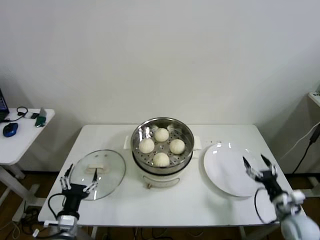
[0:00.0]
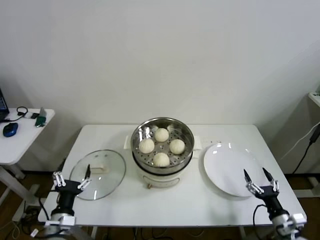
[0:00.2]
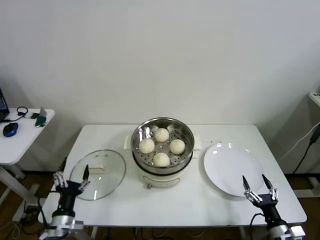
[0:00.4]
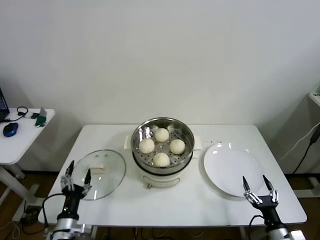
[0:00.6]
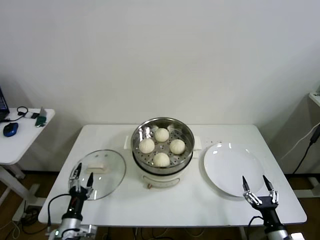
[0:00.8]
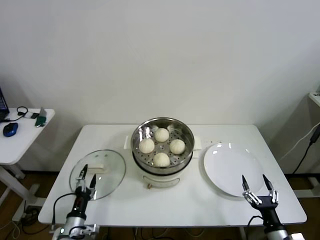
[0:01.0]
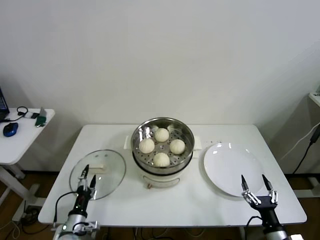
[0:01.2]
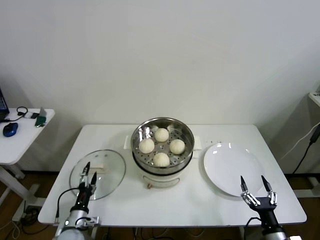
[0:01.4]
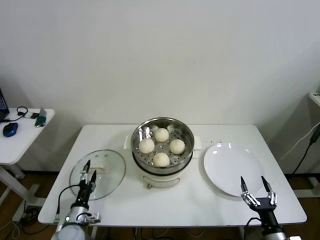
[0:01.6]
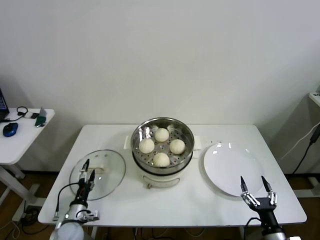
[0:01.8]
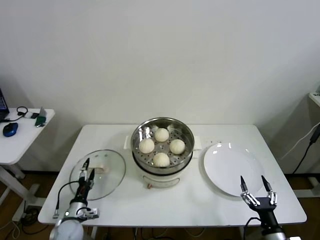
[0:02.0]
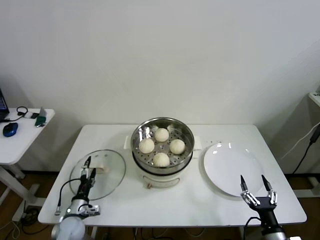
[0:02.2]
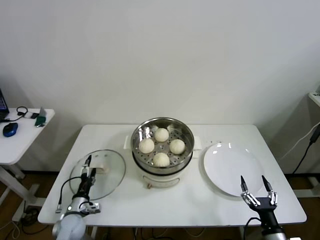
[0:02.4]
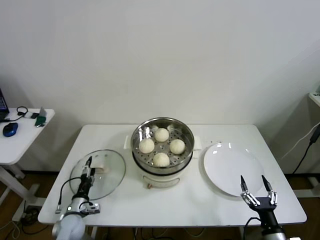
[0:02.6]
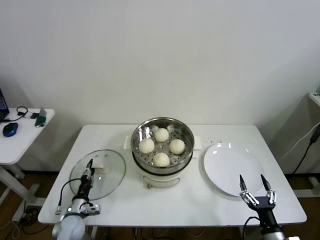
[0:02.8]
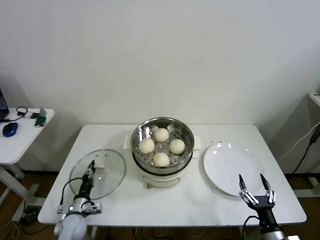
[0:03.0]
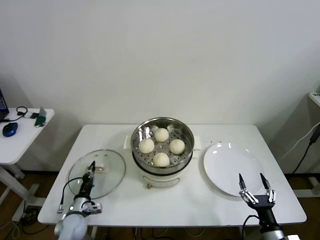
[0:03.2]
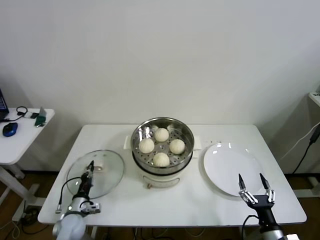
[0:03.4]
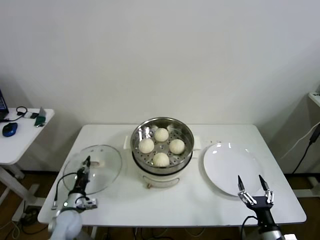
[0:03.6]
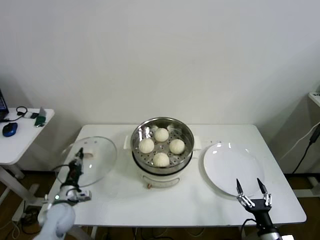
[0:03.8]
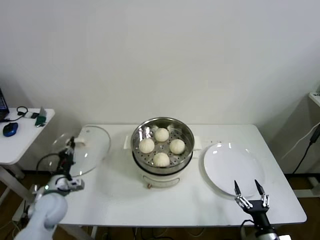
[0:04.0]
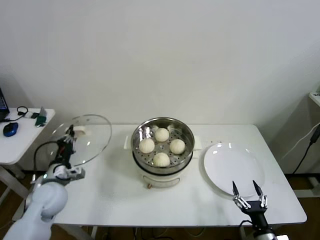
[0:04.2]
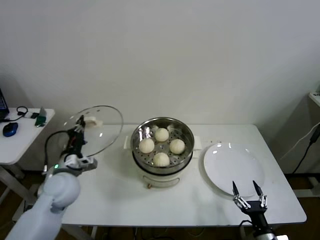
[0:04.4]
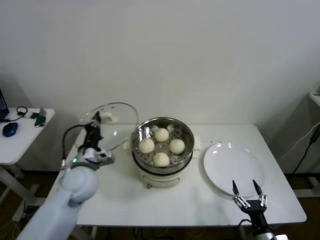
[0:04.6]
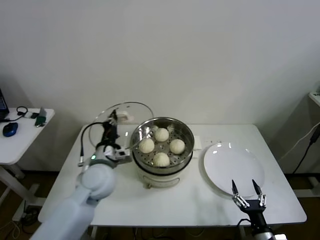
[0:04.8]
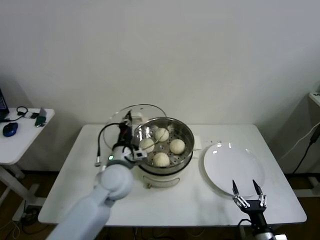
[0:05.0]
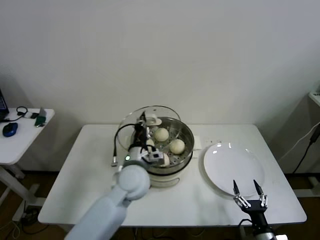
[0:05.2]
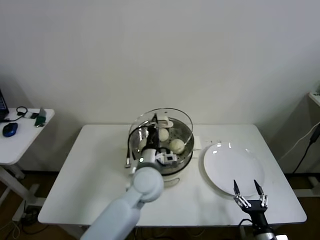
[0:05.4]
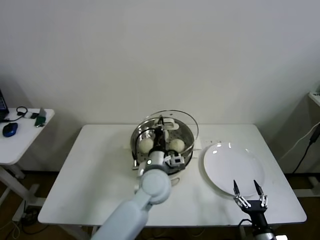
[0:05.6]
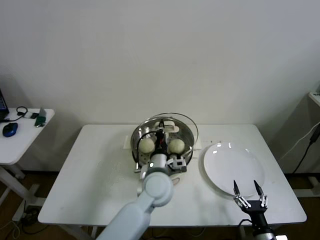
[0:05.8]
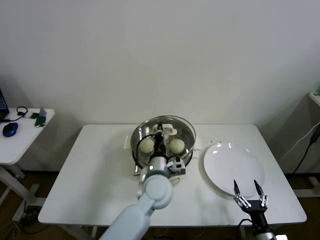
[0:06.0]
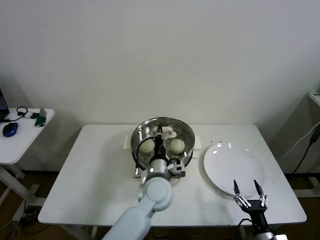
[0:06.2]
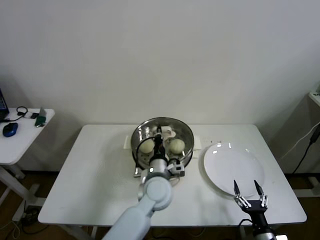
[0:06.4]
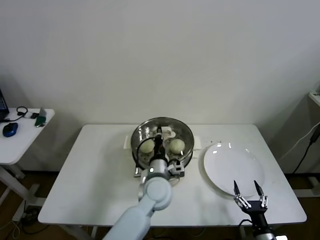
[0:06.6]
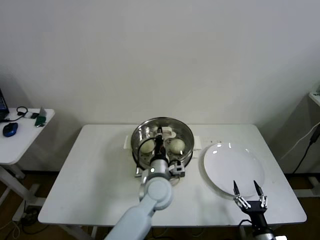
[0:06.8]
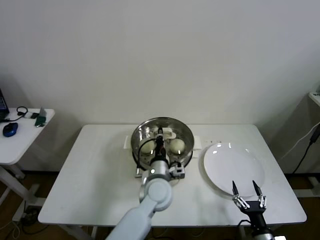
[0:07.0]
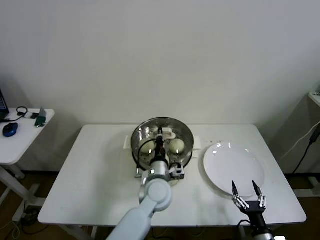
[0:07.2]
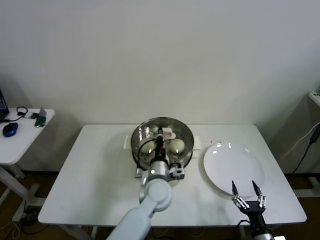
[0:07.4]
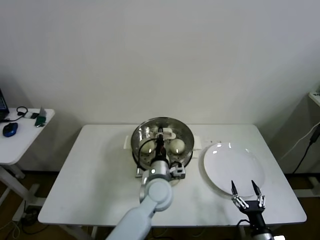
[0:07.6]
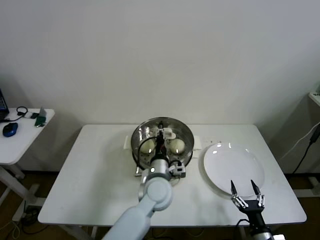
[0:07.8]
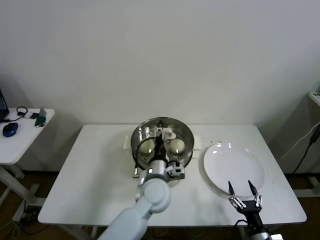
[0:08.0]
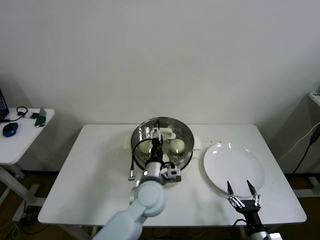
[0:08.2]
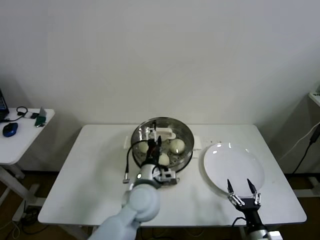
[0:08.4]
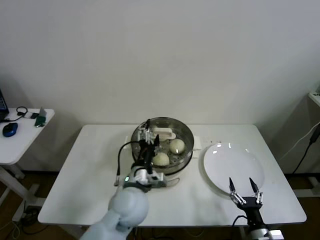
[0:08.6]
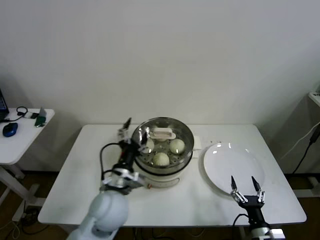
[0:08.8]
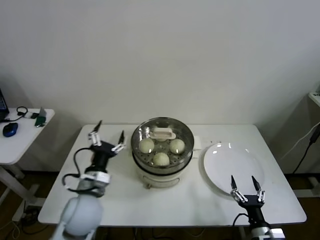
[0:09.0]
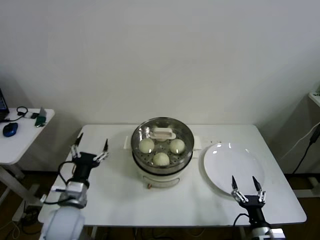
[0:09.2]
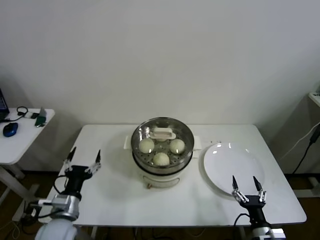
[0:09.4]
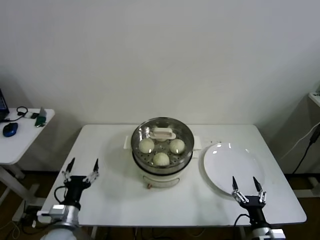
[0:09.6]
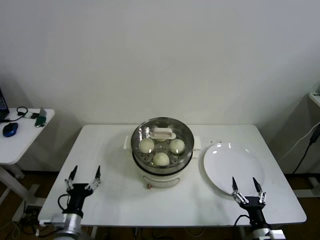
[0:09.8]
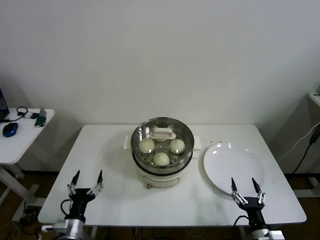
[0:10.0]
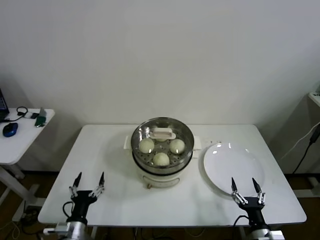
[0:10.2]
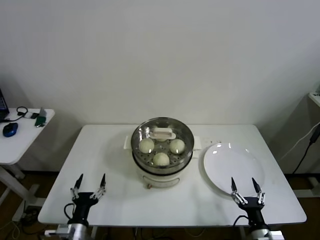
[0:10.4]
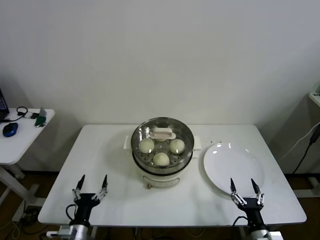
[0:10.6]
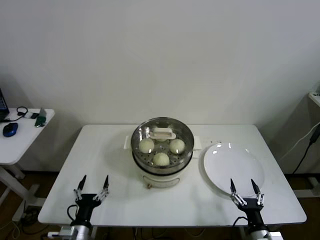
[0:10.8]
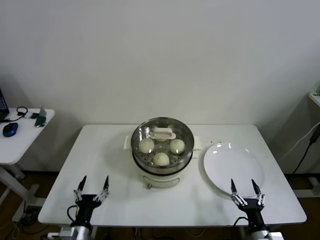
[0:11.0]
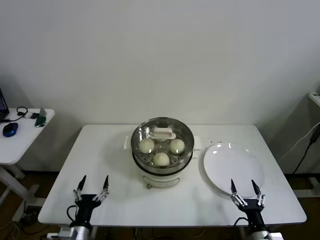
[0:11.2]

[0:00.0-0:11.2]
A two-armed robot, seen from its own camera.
Step, 0:00.0 to 0:03.2: Grasp the pot lid with left gripper.
Step, 0:03.4 to 0:07.6: Place the pot lid on the steamer with left gripper.
0:00.0 to 0:01.6: The left gripper goes about 15 cm downward and forward. The right gripper travels backward and to the left by roughly 15 cm.
0:01.6 to 0:03.2: The left gripper moves roughly 5 cm, and closes its fingers.
0:03.2 to 0:04.8: The left gripper heads upward and to the right, covering about 30 cm.
0:04.8 to 0:06.4: The left gripper moves to the right, some 20 cm.
0:06.4 to 0:08.0: The left gripper opens.
0:08.0 to 0:09.6: The left gripper moves to the left and backward, approximately 30 cm, and opens up.
0:09.6 to 0:11.2: The left gripper moves downward, some 5 cm.

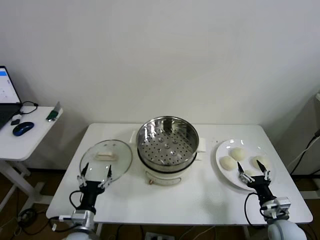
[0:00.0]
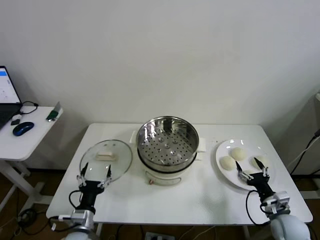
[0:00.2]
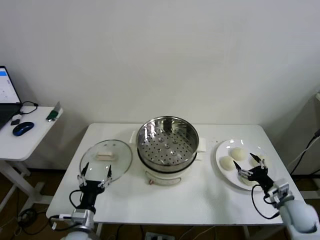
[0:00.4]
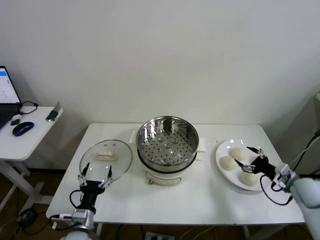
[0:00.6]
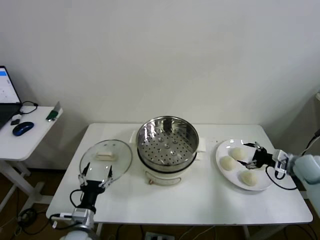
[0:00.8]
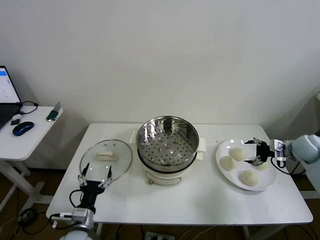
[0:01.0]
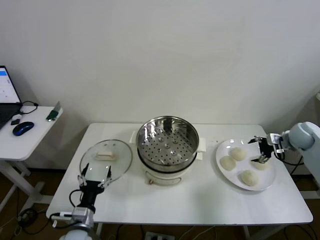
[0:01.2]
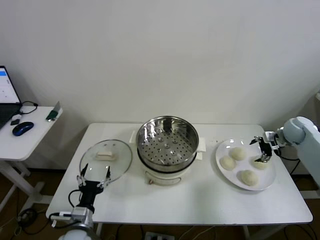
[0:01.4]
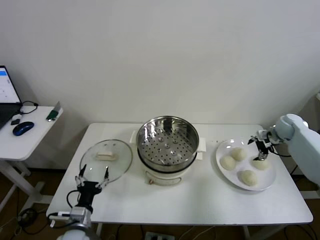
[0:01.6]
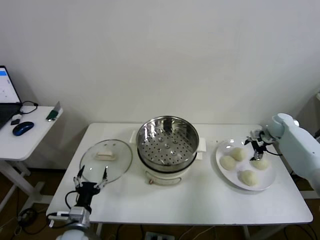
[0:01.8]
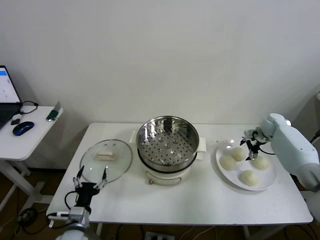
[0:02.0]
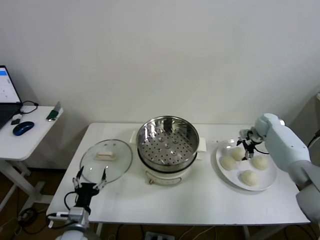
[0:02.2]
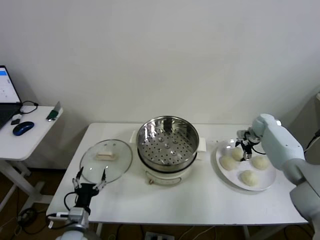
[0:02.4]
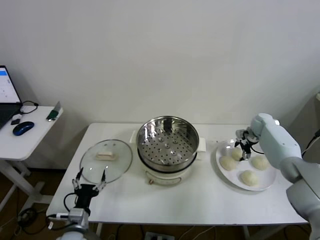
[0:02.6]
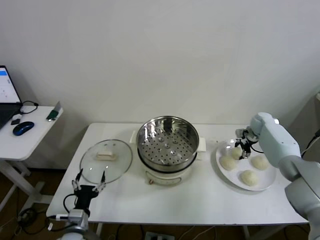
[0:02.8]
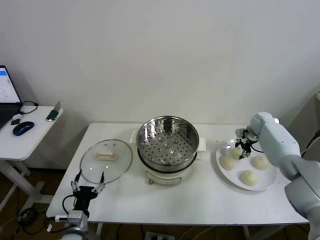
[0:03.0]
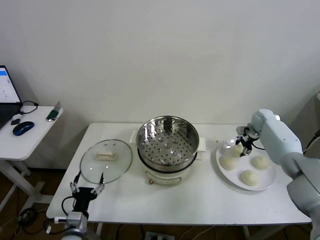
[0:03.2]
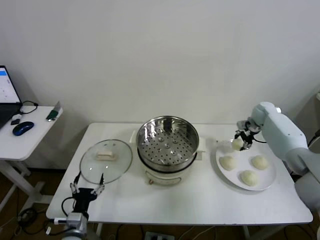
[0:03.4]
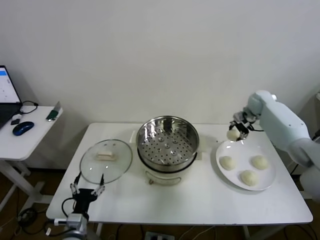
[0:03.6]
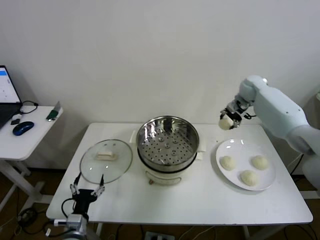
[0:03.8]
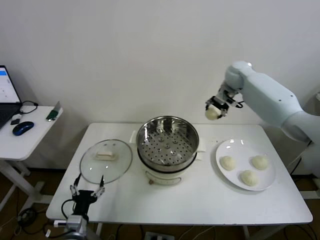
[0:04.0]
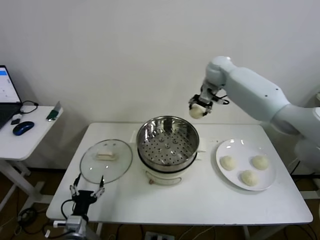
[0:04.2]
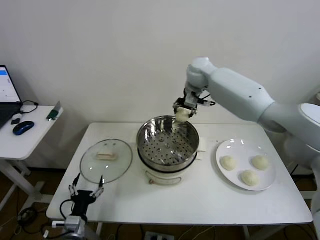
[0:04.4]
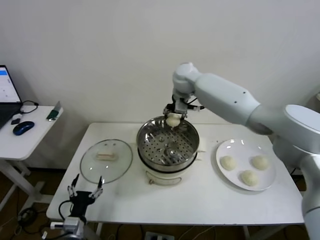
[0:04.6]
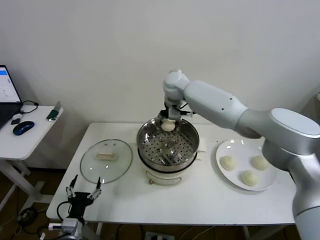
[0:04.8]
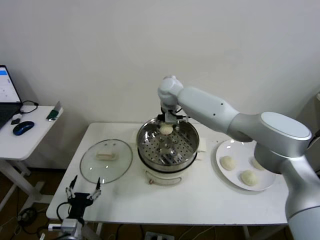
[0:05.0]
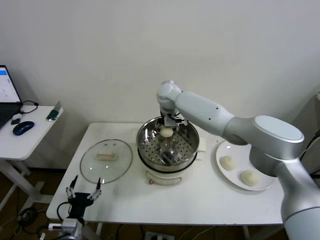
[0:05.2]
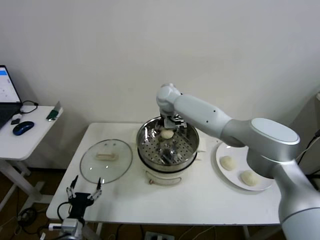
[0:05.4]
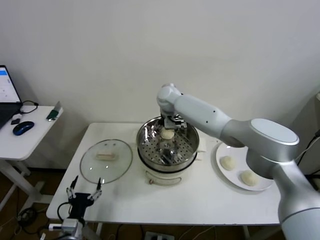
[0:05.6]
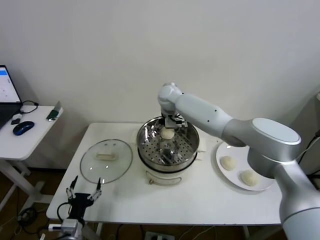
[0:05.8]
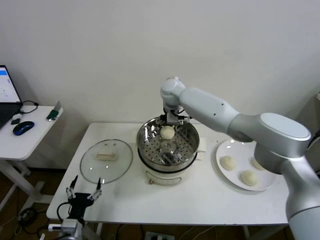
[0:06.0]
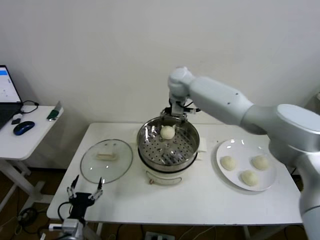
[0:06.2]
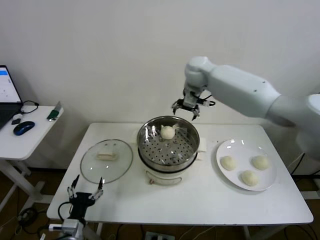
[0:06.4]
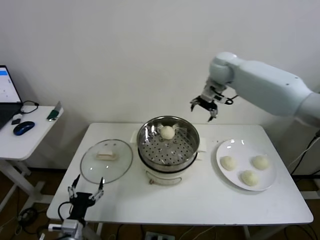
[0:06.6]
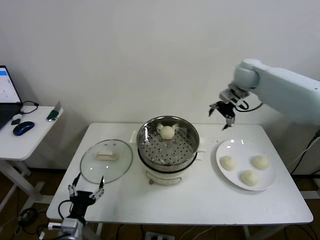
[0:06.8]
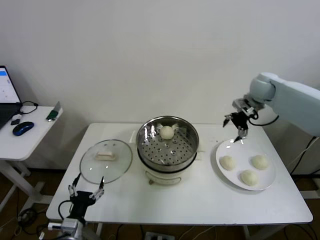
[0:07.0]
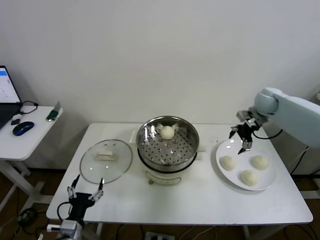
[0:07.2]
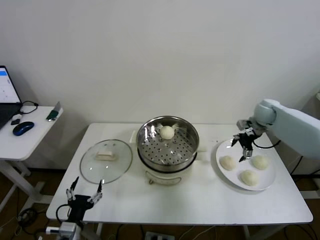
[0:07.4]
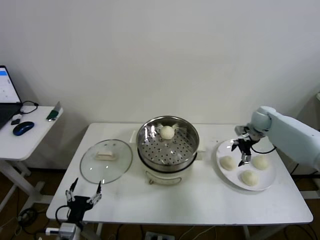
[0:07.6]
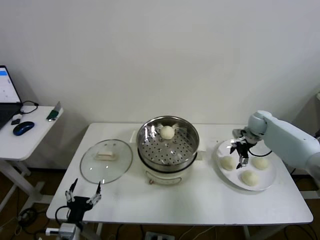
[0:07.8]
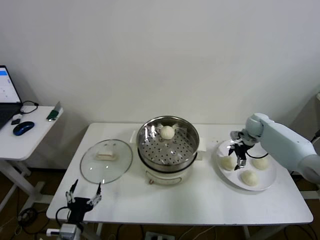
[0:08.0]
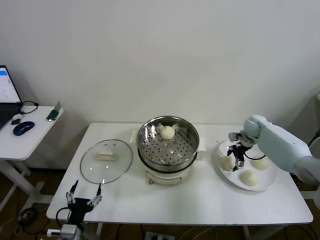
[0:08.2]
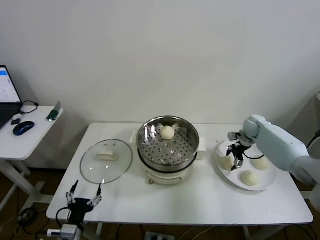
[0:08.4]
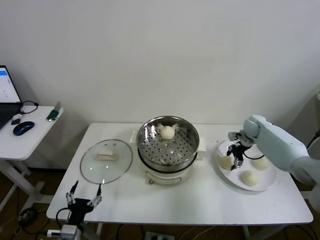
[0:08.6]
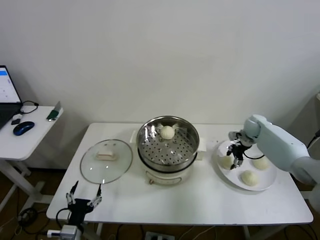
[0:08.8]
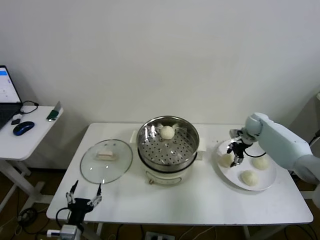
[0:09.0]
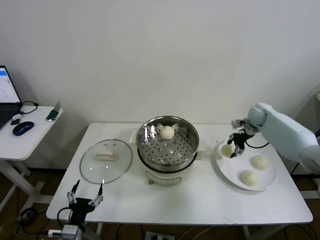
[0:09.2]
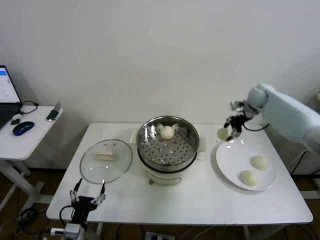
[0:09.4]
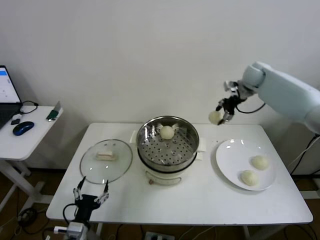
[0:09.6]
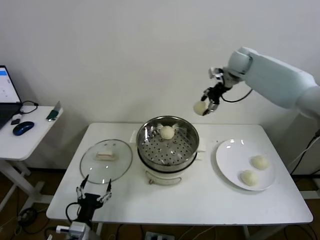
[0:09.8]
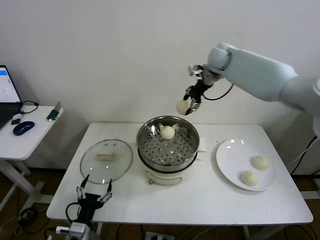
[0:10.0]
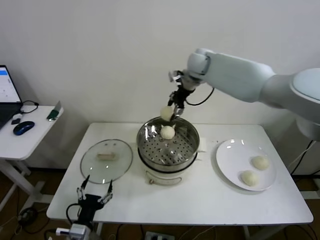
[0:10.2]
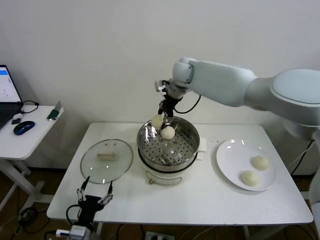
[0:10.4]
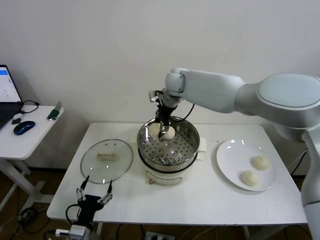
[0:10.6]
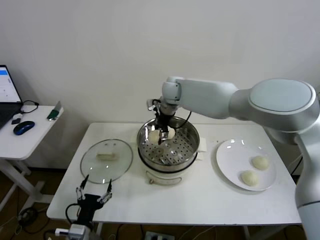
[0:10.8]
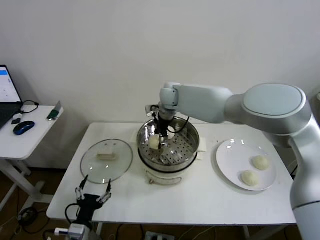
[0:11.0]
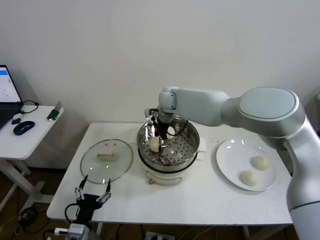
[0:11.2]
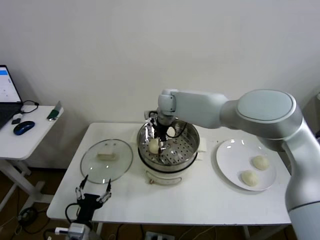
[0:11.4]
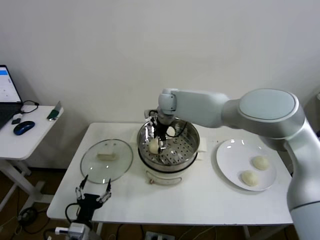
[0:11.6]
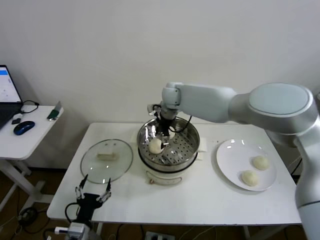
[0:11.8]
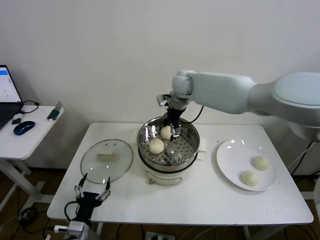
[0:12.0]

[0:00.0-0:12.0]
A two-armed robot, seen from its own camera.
Step, 0:00.0 to 0:03.0: Grasp the baozi in the plate with right gripper.
Step, 0:03.2 to 0:05.8: Place the baozi on the steamer with right gripper.
Step, 0:06.0 to 0:08.8: Grasp the baozi in the plate with right gripper.
Step, 0:09.0 to 0:11.6: Place the baozi on the steamer with right gripper.
0:01.6 to 0:03.0: The right gripper travels forward and to the left by about 5 cm, and closes.
0:03.0 to 0:04.4: The right gripper heads to the left and upward, covering some 40 cm.
0:04.4 to 0:06.0: The right gripper opens up.
0:06.0 to 0:07.6: The right gripper shifts approximately 40 cm to the right and downward.
0:07.6 to 0:09.0: The right gripper closes.
0:09.0 to 0:10.4: The right gripper is displaced to the left and upward by roughly 40 cm.
0:10.4 to 0:12.0: The right gripper travels downward and back again, some 10 cm each way, and opens.
